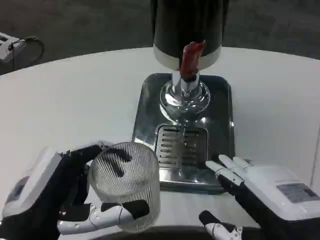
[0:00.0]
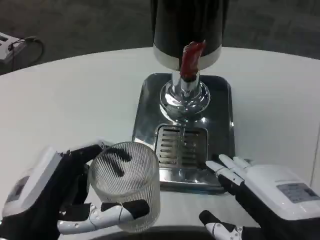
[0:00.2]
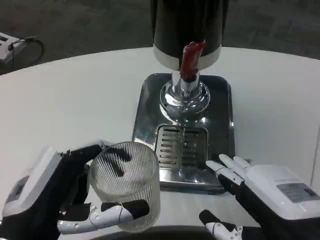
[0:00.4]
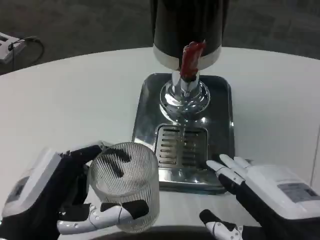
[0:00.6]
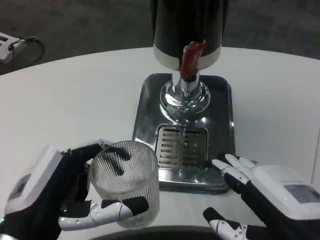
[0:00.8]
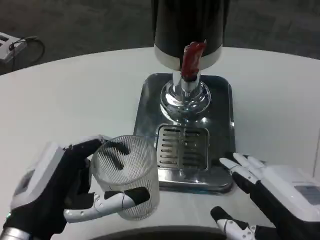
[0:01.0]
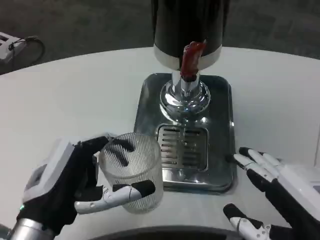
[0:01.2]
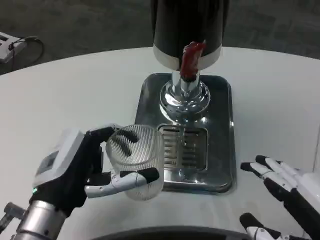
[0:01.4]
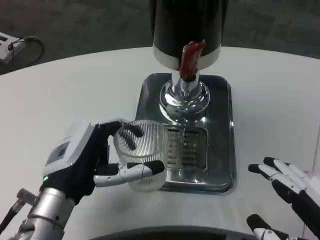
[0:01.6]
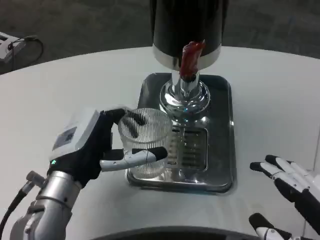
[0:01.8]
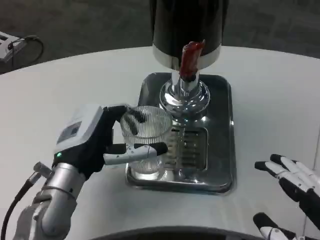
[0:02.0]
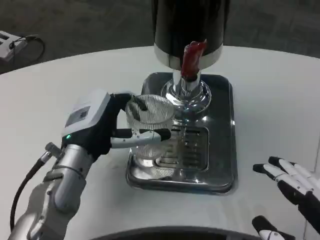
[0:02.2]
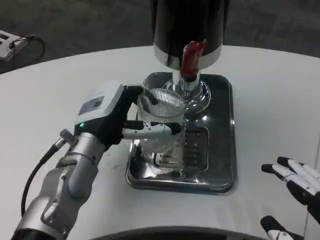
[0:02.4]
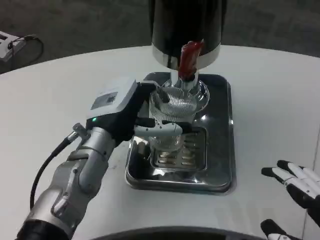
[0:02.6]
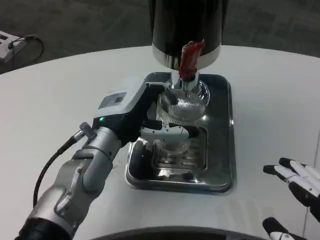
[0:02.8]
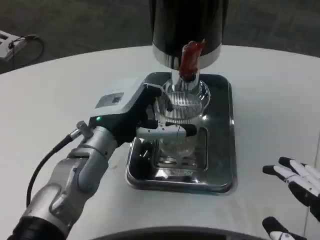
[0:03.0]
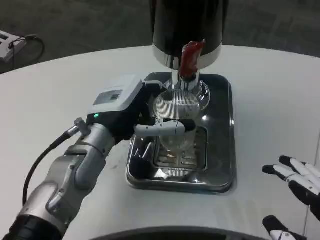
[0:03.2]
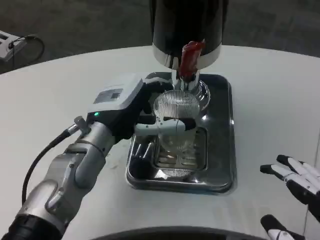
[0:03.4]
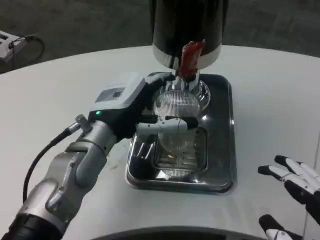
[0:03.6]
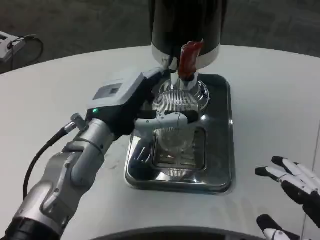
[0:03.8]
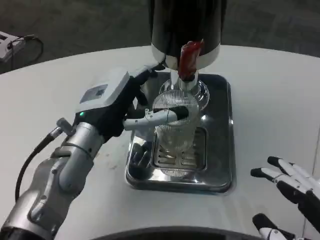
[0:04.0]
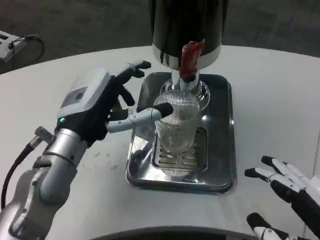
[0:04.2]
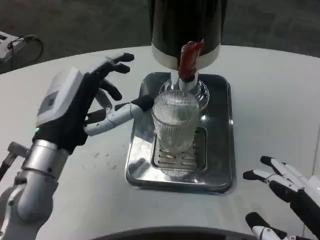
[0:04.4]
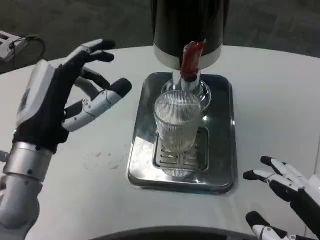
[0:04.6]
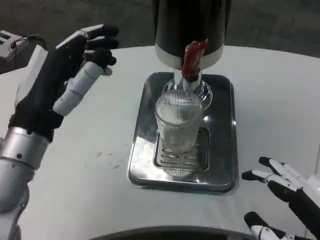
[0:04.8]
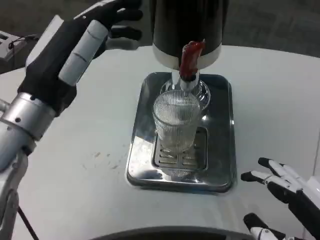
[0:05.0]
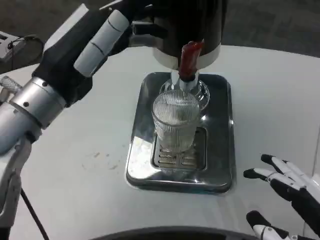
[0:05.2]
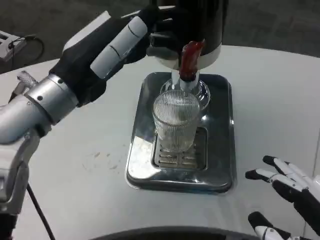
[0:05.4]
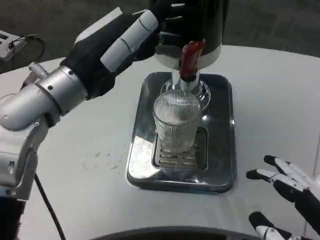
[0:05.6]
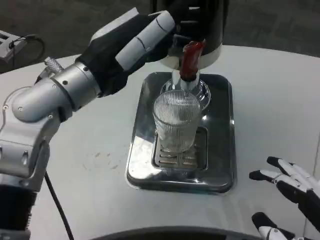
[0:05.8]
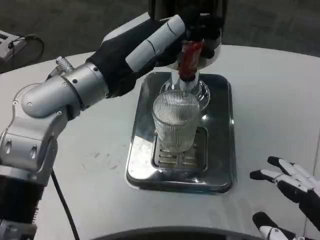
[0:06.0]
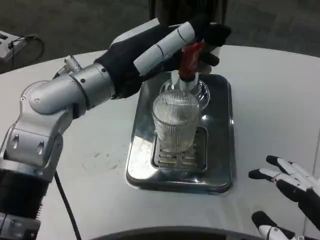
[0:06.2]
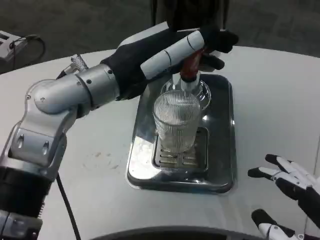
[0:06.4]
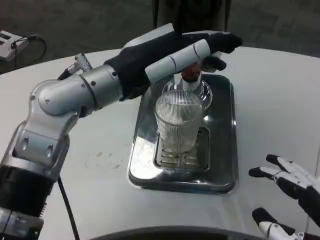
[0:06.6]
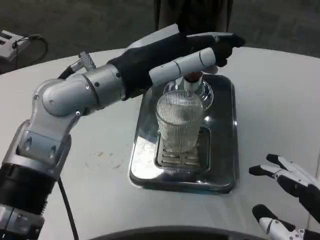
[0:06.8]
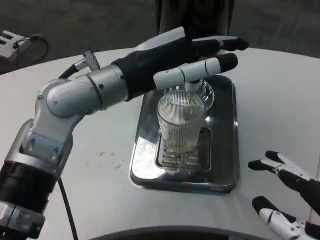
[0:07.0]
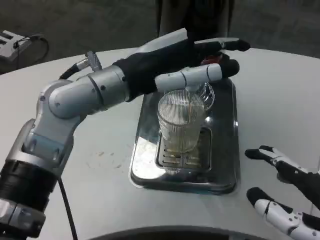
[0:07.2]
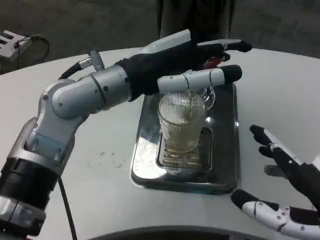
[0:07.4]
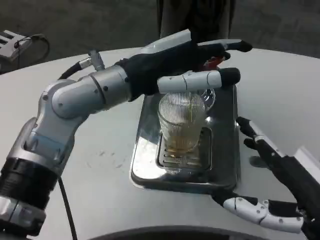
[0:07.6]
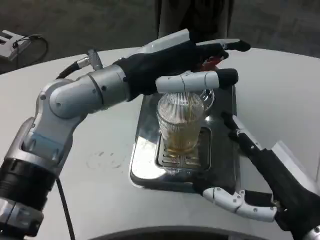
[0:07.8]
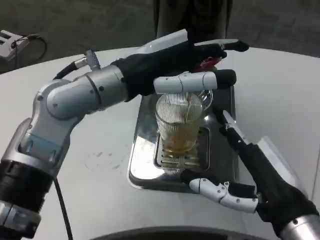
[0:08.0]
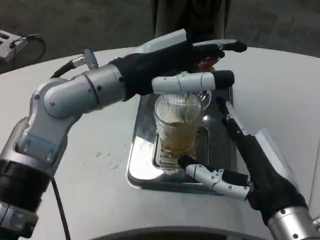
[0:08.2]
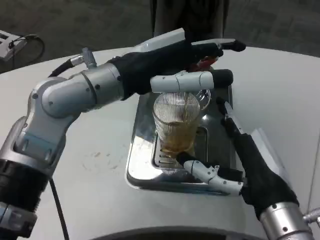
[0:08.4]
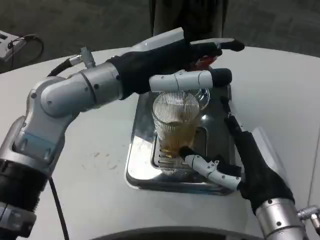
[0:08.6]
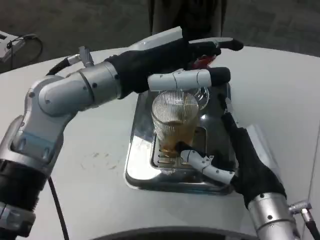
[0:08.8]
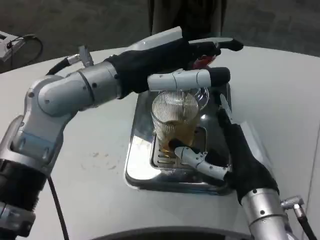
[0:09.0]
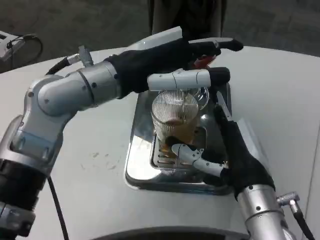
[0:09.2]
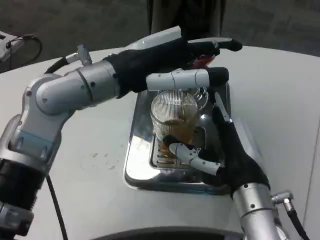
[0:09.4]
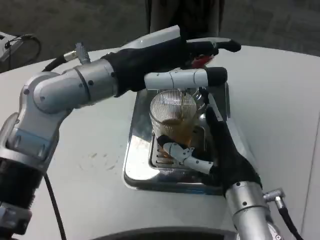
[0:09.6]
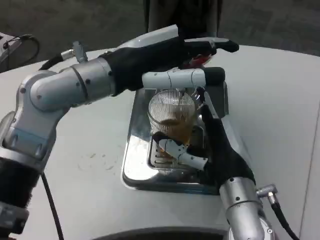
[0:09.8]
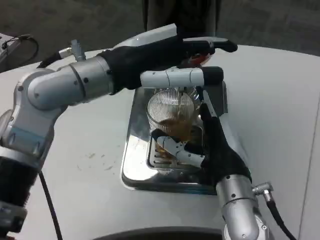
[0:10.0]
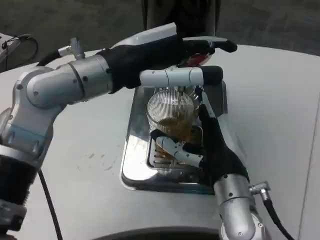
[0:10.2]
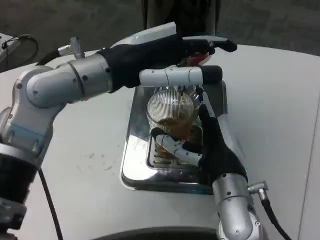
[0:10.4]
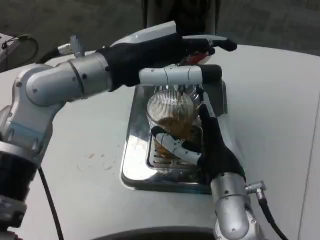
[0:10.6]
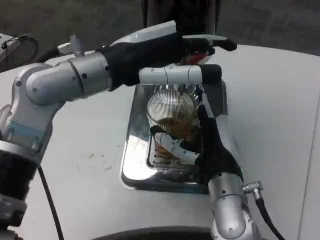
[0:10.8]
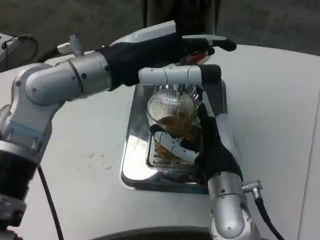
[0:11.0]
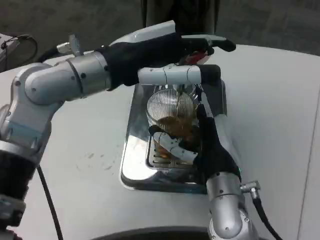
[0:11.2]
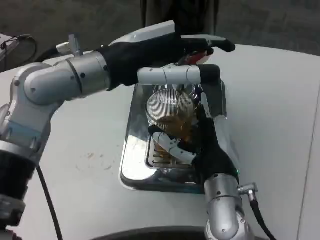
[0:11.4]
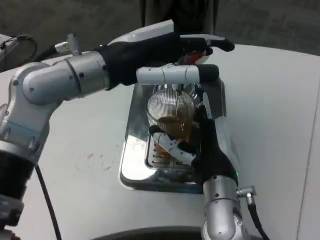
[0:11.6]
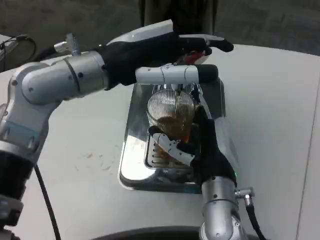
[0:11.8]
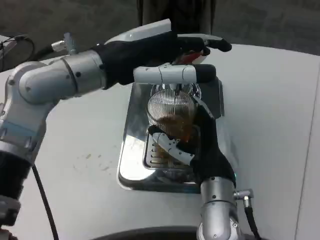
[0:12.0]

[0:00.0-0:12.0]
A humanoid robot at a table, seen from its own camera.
Task of the whole recording: Grasp the cup under the faucet to collect the drink, then remove the cup.
0:00.0 to 0:01.6: The right hand shifts by about 5 cm; the left hand goes roughly 10 cm forward.
0:01.6 to 0:03.0: The left hand shifts approximately 10 cm forward.
0:03.0 to 0:04.4: The left hand travels to the left by about 5 cm.
0:04.4 to 0:06.0: The left hand moves upward, approximately 10 cm.
0:06.0 to 0:07.6: The right hand goes roughly 5 cm forward.
0:07.6 to 0:09.0: The right hand travels forward and to the left by some 10 cm.

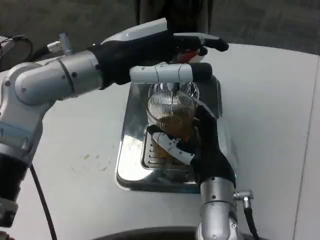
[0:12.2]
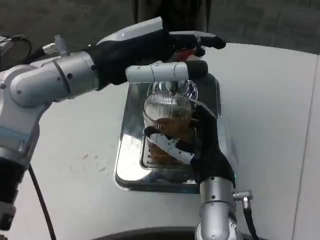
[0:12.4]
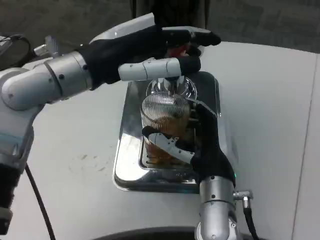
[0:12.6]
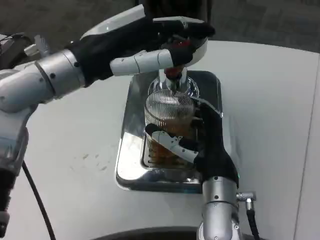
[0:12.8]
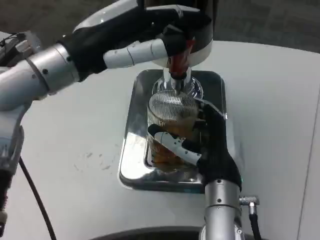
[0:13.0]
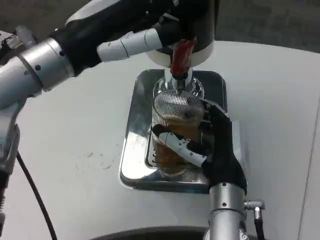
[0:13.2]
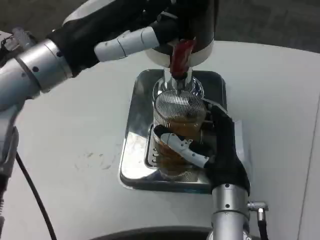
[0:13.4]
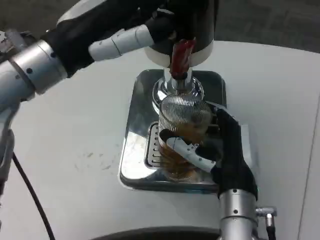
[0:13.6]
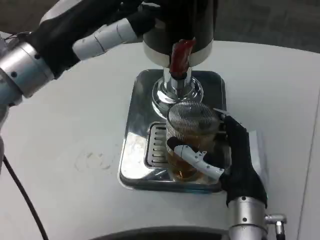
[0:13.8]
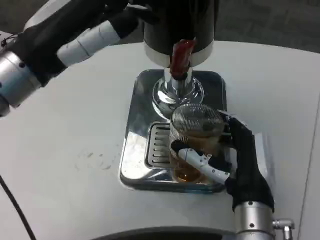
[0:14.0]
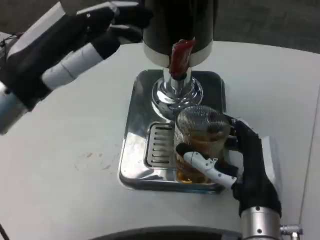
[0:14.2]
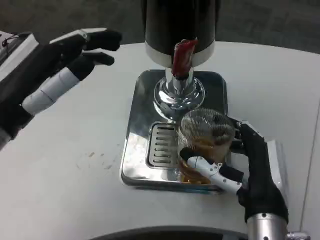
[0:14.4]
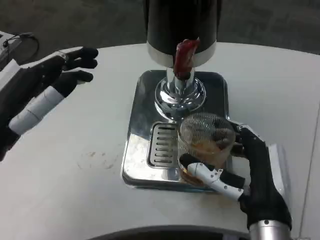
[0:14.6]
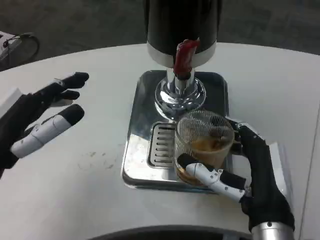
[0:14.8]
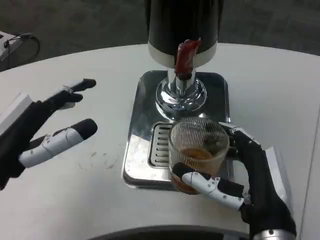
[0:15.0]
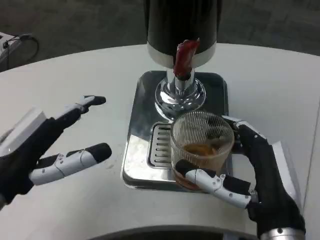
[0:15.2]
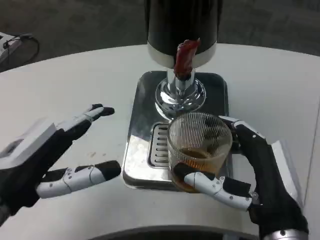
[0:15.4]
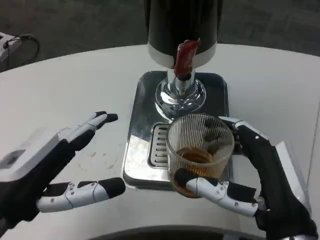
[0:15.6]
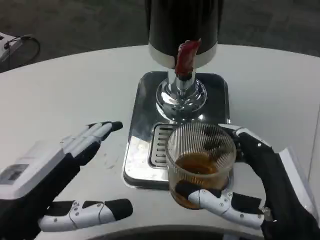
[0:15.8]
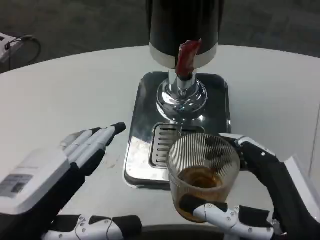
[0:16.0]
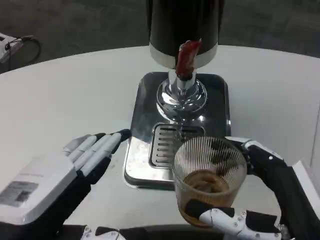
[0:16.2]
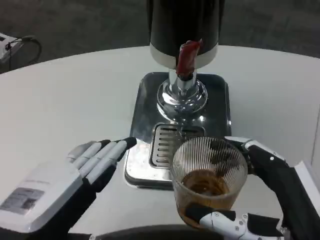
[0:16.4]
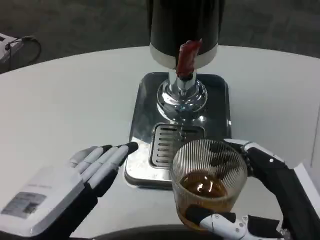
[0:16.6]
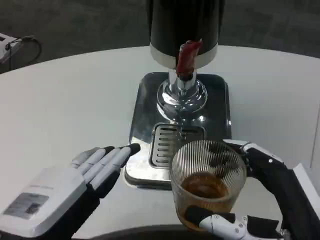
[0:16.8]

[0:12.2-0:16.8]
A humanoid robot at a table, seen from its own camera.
Task of the whole recording: Grasp the cup under the faucet to collect the drink, then remove the cup.
0:12.2 to 0:13.8: The left hand changes place by some 5 cm.
0:13.8 to 0:15.2: The left hand shifts roughly 15 cm downward and backward. The right hand travels backward by approximately 5 cm.
0:15.2 to 0:16.8: The two hands go about 5 cm backward.

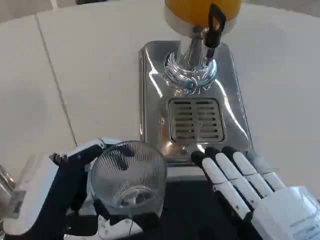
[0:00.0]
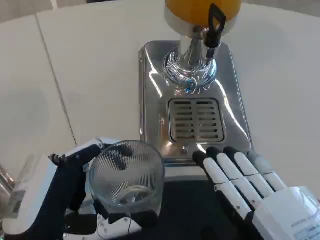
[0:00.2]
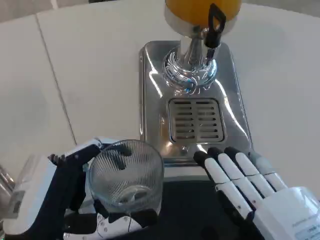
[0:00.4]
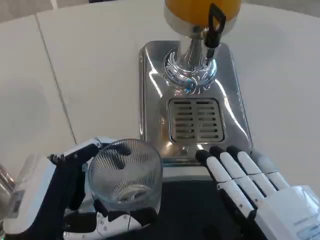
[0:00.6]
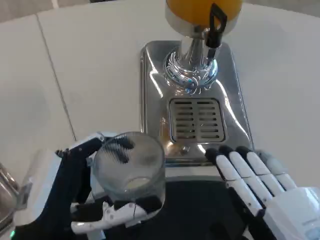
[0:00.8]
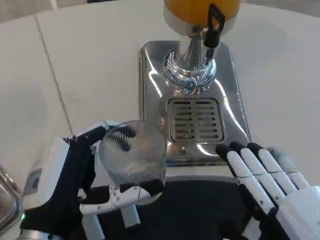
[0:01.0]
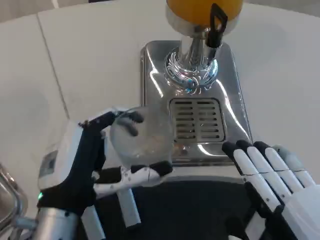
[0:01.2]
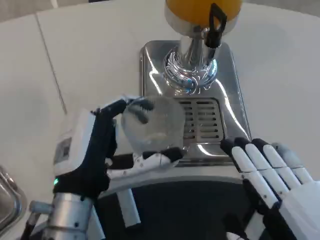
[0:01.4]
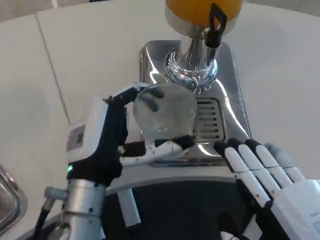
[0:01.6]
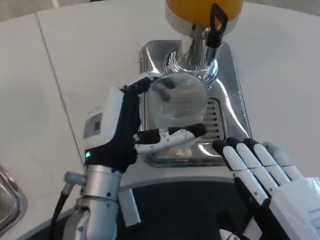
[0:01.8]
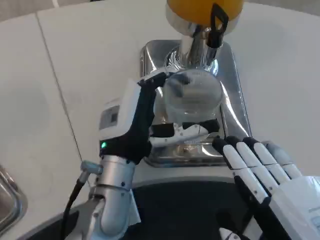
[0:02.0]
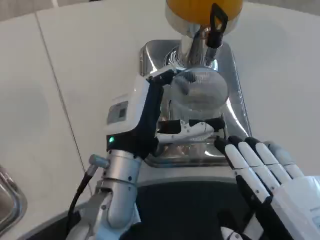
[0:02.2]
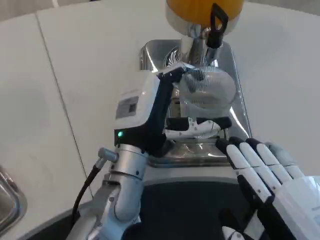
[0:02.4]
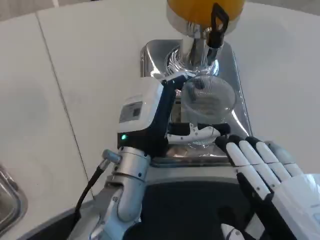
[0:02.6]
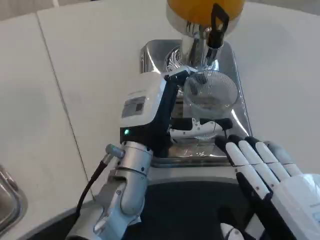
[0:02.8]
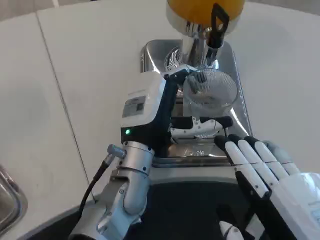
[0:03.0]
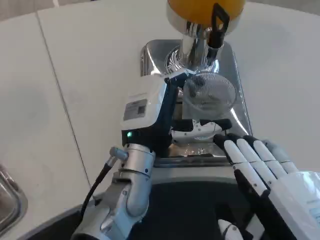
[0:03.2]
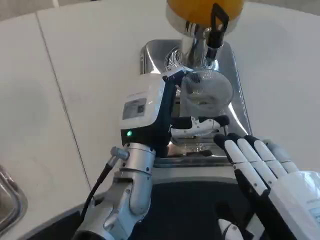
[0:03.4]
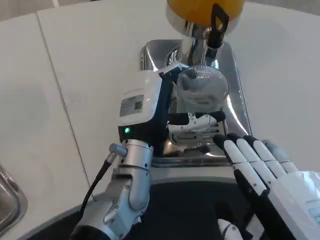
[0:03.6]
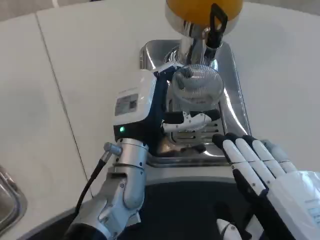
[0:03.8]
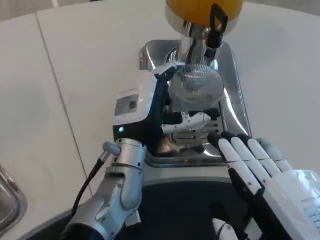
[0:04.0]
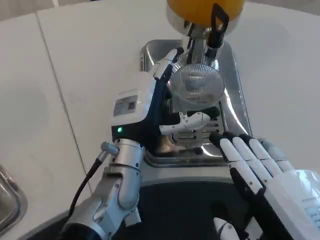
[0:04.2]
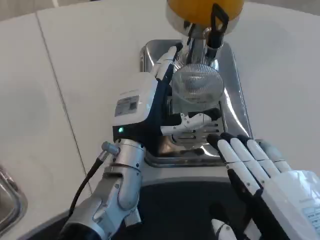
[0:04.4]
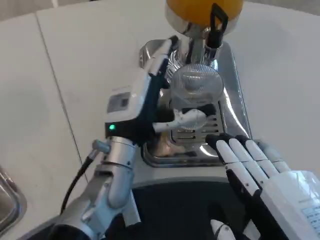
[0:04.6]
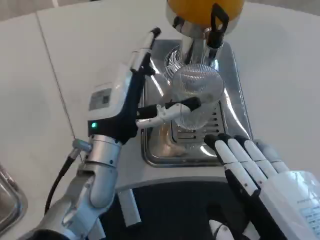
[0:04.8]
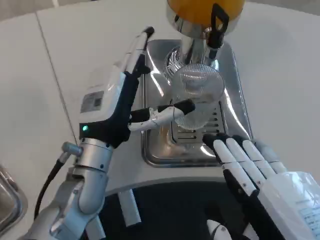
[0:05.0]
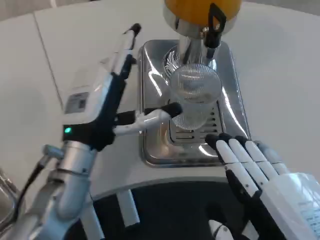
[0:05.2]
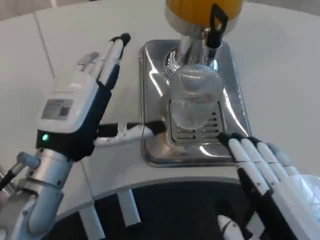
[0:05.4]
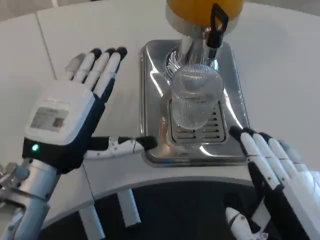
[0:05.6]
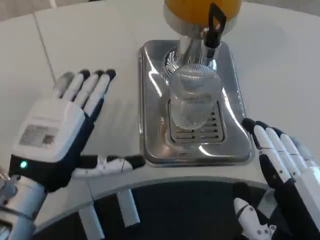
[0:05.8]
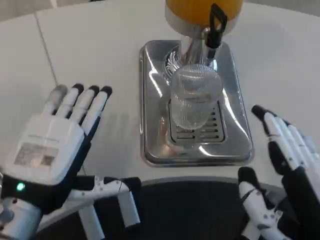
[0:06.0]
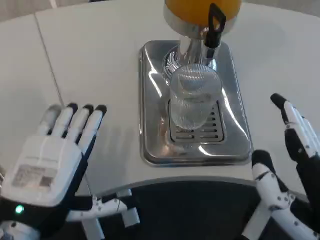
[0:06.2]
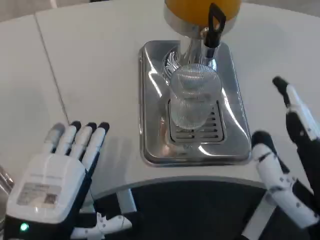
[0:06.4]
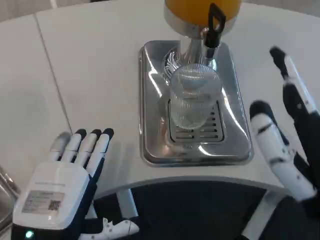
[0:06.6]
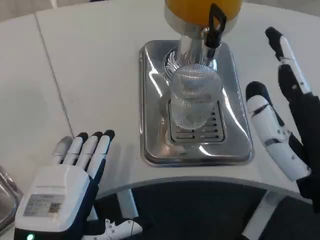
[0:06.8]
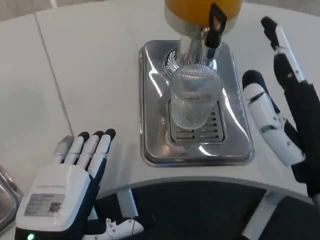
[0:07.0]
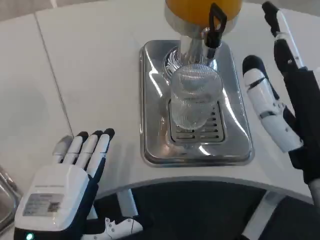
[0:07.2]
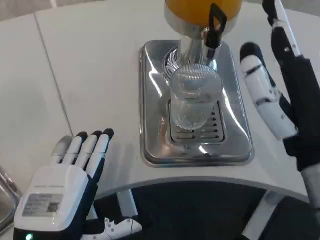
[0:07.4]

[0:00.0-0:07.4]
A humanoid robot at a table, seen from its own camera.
Task of the whole recording: Grasp the cup under the faucet to collect the drink, then remove the cup.
0:00.0 to 0:01.4: The left hand is displaced forward by about 10 cm.
0:01.4 to 0:03.0: The left hand goes roughly 10 cm forward and to the right.
0:03.0 to 0:04.4: There are only small adjustments of the hands.
0:04.4 to 0:06.0: The left hand moves backward and to the left, some 15 cm.
0:06.0 to 0:07.4: The right hand goes approximately 10 cm forward. The left hand shifts by roughly 5 cm.
